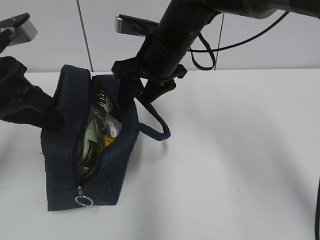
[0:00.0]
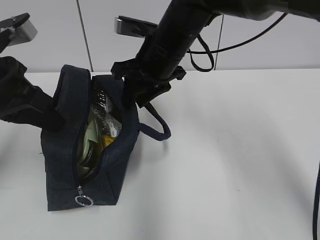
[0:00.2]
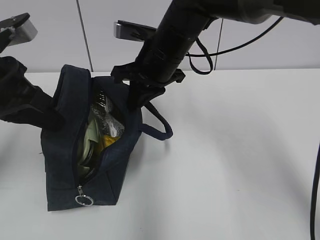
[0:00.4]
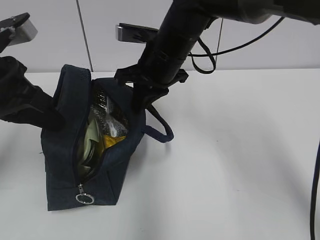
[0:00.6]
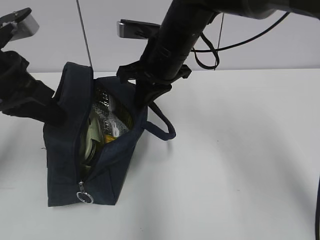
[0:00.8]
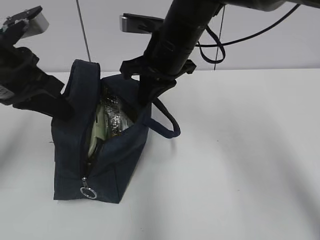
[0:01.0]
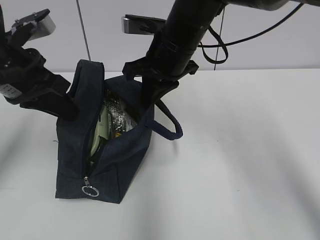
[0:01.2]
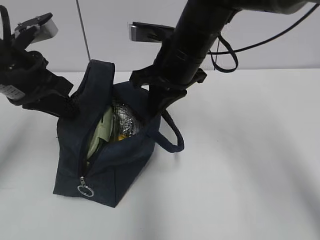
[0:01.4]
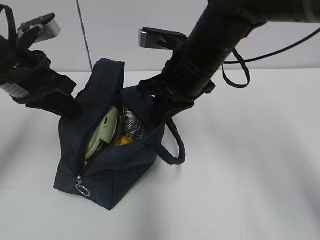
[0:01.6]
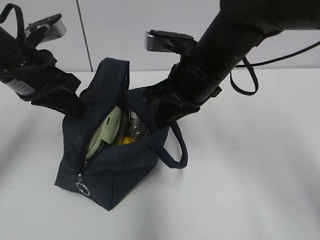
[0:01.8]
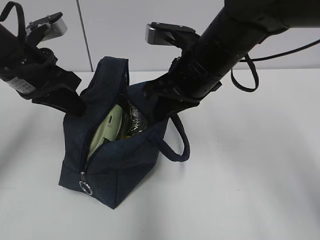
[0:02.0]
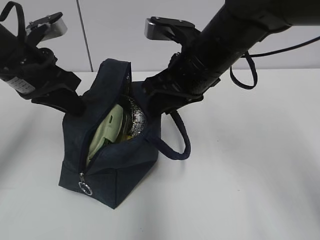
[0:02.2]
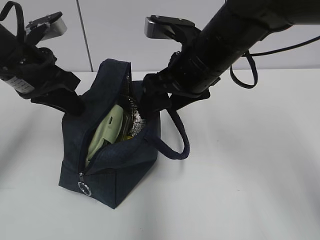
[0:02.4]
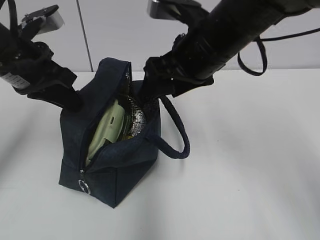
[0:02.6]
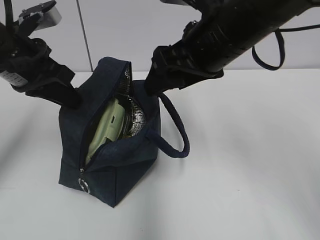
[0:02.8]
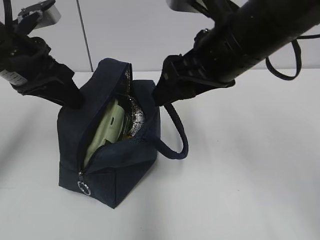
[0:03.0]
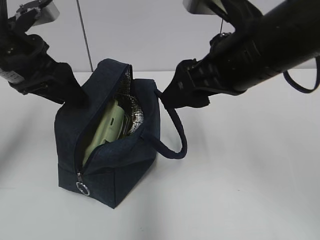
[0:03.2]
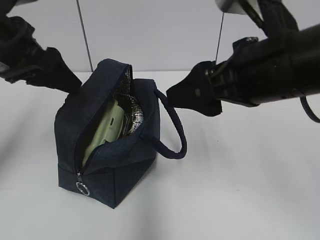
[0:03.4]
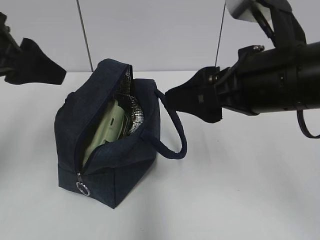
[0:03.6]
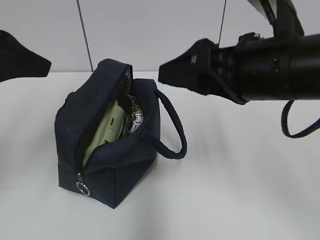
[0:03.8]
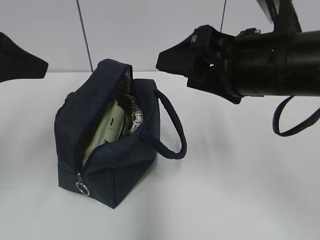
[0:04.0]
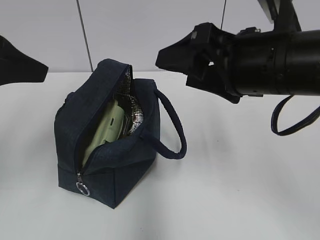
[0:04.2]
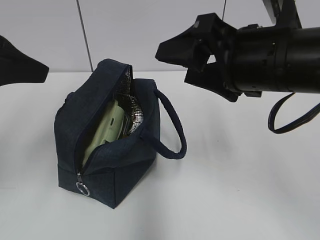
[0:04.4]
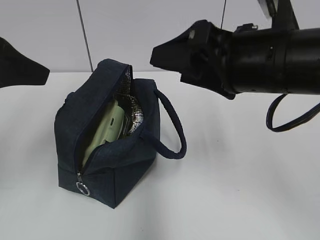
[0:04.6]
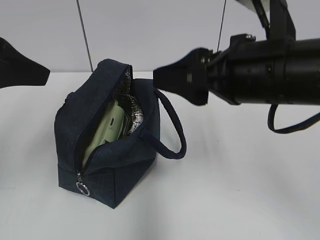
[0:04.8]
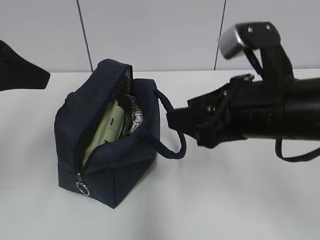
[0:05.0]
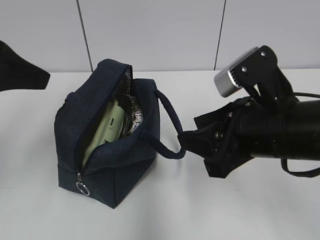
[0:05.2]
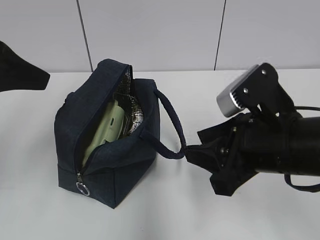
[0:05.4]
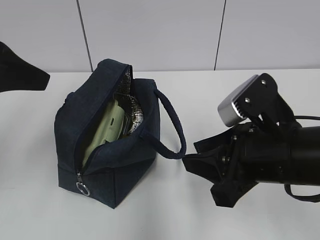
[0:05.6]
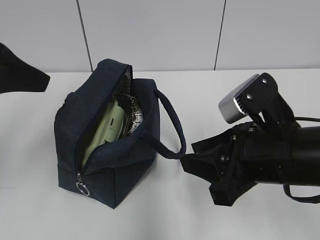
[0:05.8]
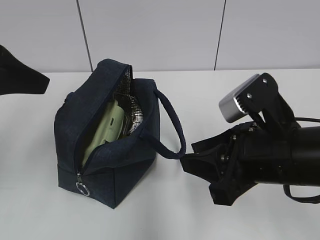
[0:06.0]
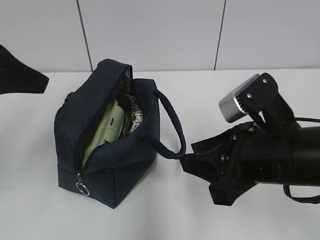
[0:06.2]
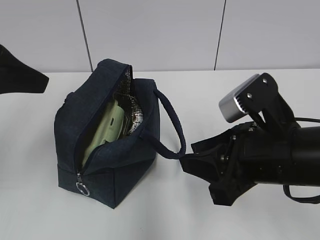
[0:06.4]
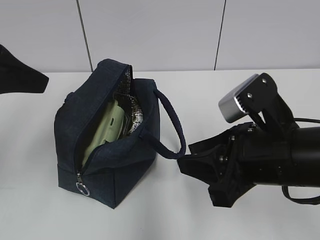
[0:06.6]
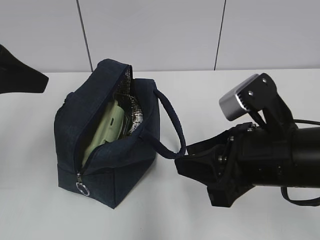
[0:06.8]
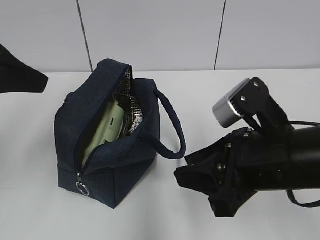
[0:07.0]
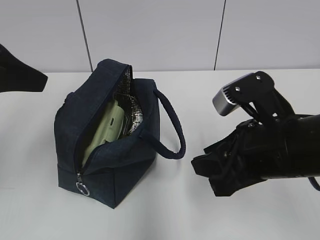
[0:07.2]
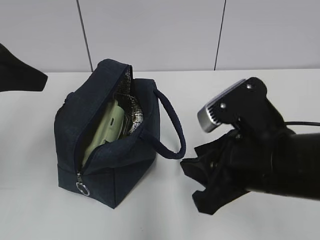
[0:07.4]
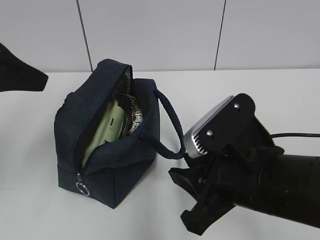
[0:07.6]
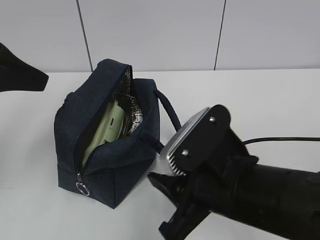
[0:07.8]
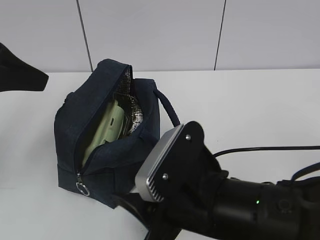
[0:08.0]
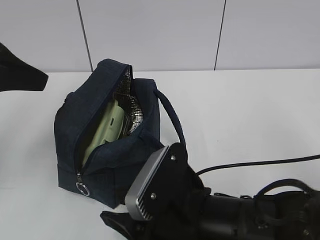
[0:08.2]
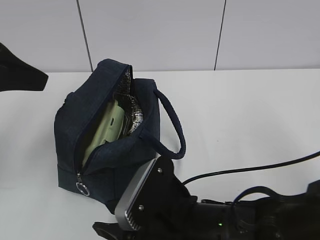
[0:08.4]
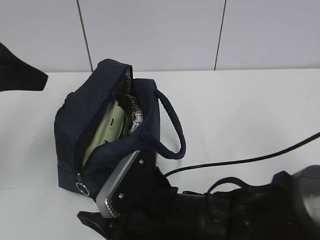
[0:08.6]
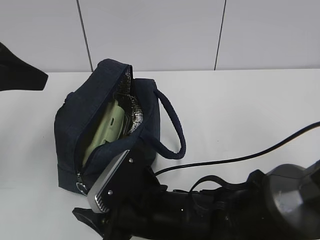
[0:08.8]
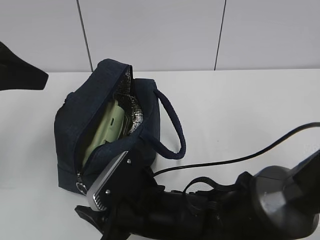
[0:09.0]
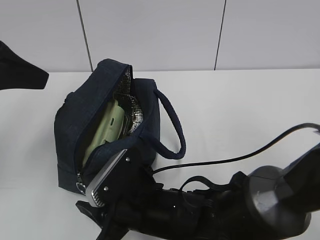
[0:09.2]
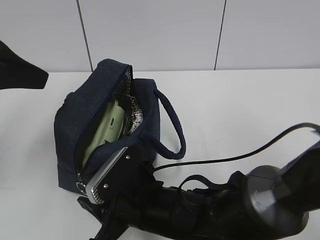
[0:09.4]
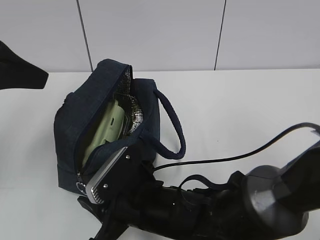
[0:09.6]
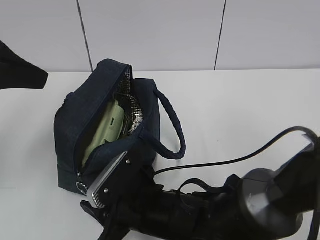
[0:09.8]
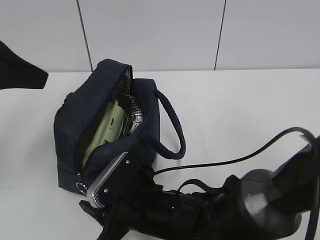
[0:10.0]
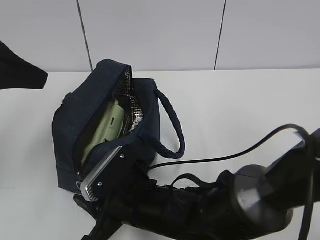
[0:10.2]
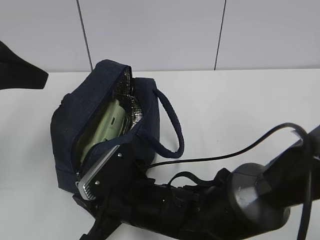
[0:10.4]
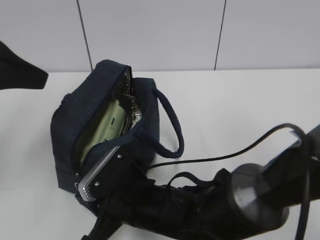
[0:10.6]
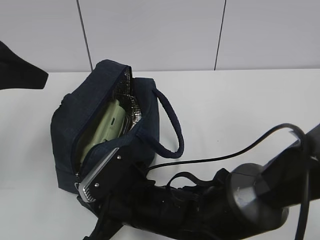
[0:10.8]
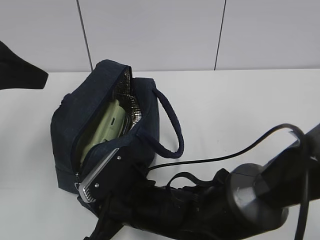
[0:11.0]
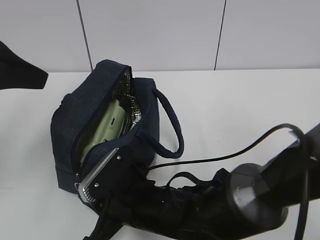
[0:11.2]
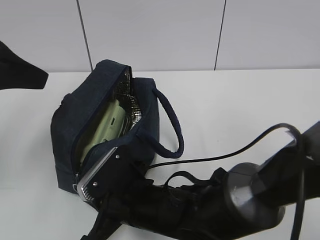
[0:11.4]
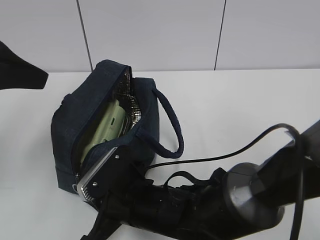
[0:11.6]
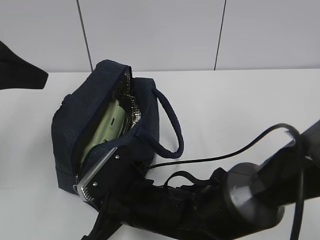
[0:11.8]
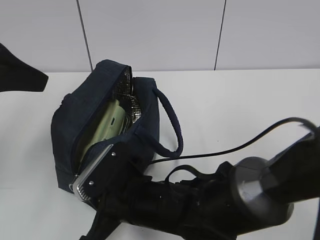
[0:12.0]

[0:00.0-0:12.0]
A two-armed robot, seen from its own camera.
Step, 0:00.8 to 0:02.8: Move the lunch bag to the right.
0:00.0 to 0:01.6: The right gripper shifts by some 5 cm, and closes its fingers.
0:01.6 to 0:03.0: The left gripper opens its fingers, while the right gripper shifts about 10 cm backward and upward, and opens up.
0:03.0 to 0:04.4: The left gripper moves backward and upward, roughly 10 cm; the right gripper shifts by about 5 cm.
0:04.4 to 0:06.0: The right gripper is displaced downward by about 10 cm, and closes up.
0:06.0 to 0:07.6: The grippers move only a little.
0:07.6 to 0:09.0: The right gripper moves to the left and downward, roughly 15 cm.
0:09.0 to 0:10.4: The grippers make only small movements.
0:10.4 to 0:12.0: The right gripper closes its fingers.

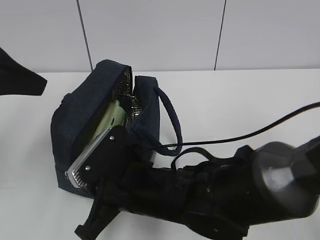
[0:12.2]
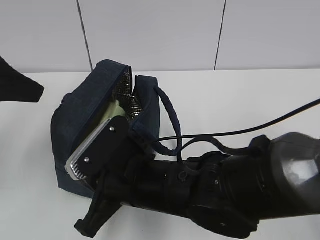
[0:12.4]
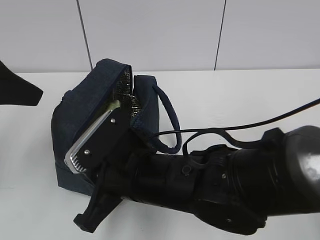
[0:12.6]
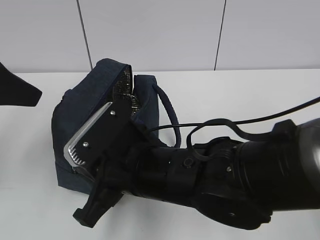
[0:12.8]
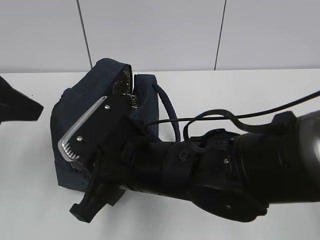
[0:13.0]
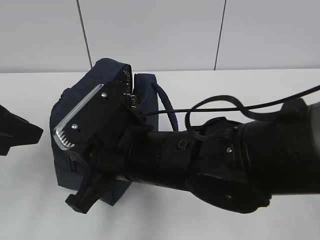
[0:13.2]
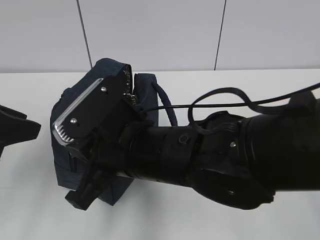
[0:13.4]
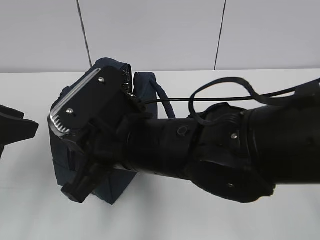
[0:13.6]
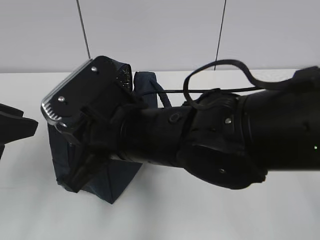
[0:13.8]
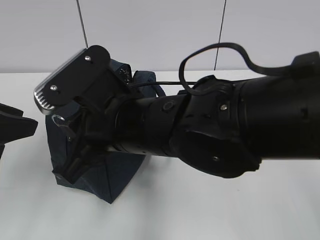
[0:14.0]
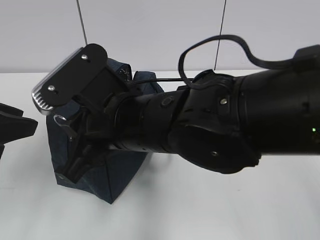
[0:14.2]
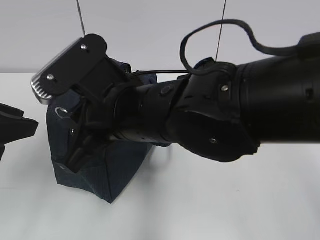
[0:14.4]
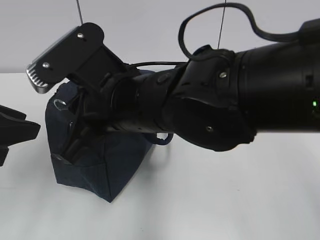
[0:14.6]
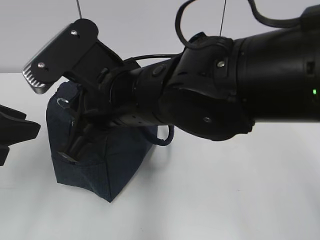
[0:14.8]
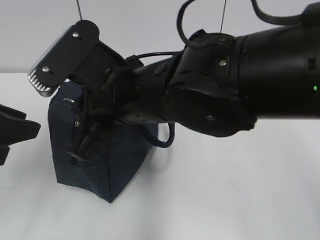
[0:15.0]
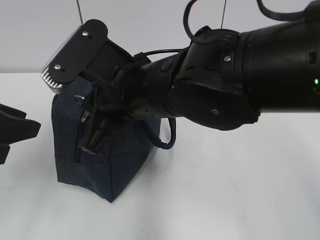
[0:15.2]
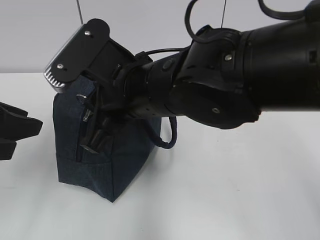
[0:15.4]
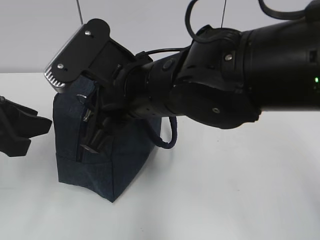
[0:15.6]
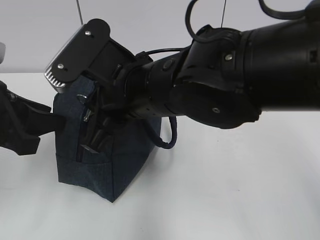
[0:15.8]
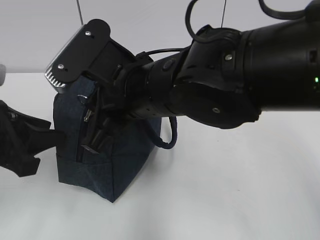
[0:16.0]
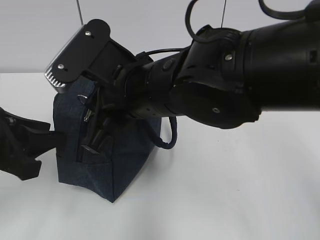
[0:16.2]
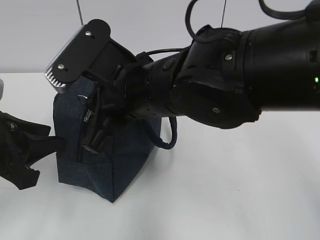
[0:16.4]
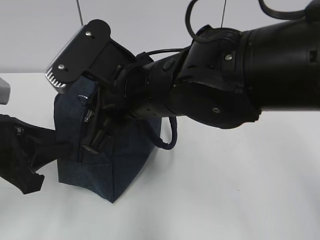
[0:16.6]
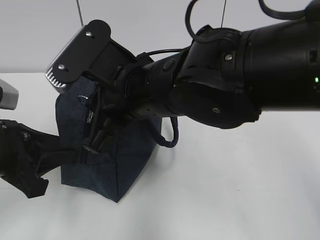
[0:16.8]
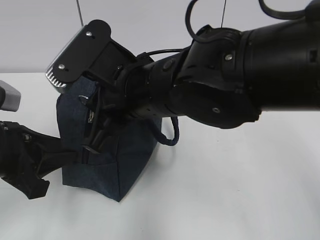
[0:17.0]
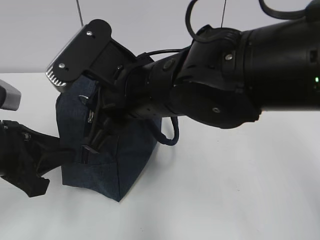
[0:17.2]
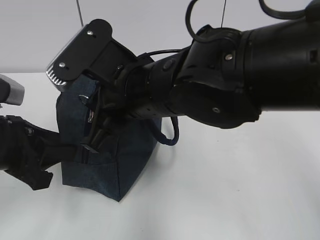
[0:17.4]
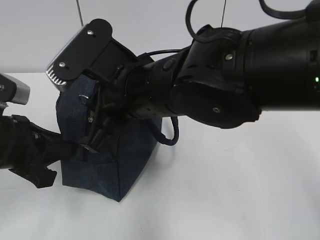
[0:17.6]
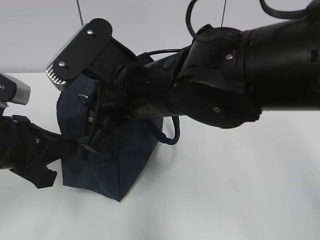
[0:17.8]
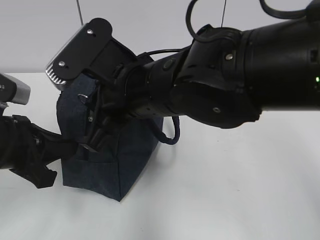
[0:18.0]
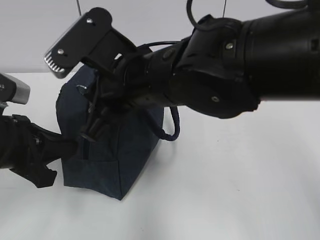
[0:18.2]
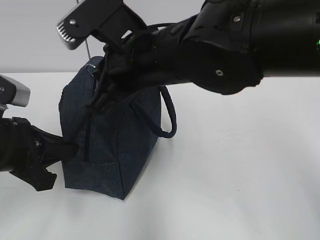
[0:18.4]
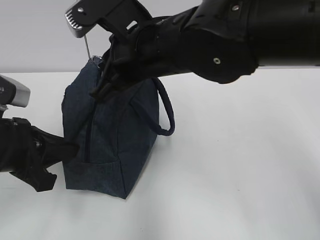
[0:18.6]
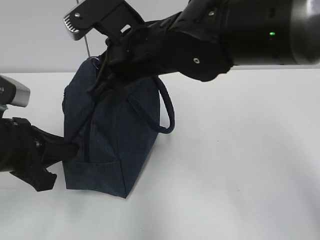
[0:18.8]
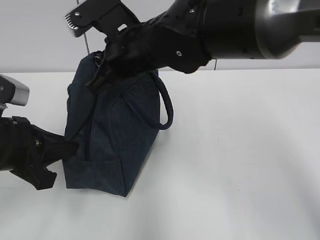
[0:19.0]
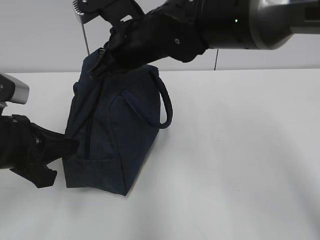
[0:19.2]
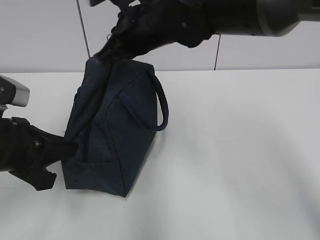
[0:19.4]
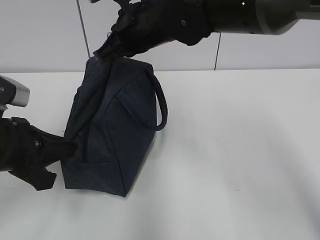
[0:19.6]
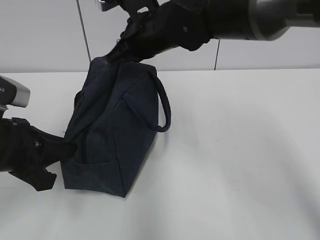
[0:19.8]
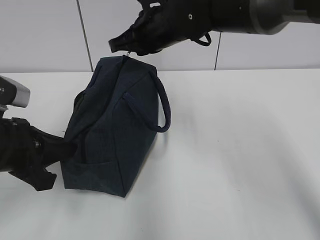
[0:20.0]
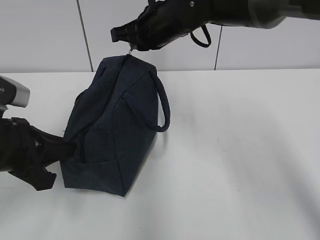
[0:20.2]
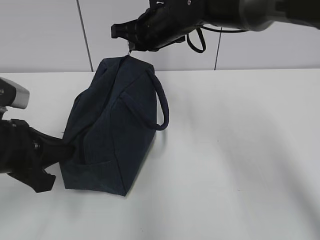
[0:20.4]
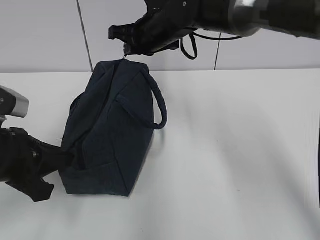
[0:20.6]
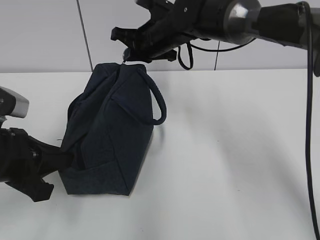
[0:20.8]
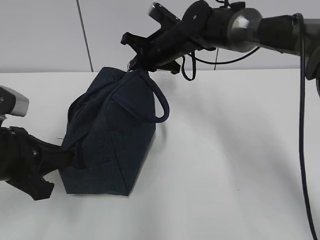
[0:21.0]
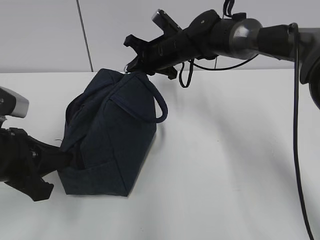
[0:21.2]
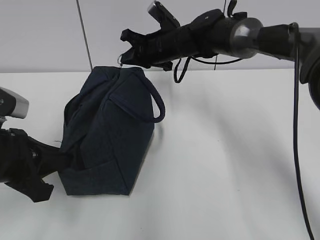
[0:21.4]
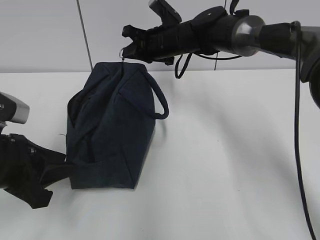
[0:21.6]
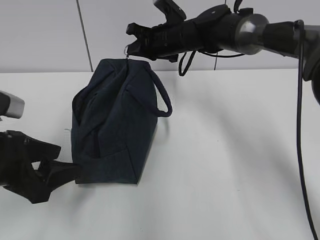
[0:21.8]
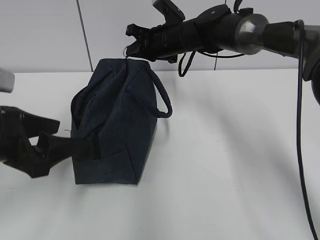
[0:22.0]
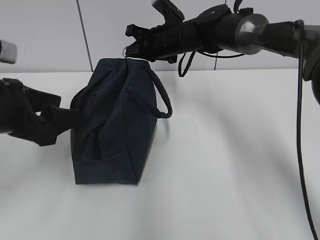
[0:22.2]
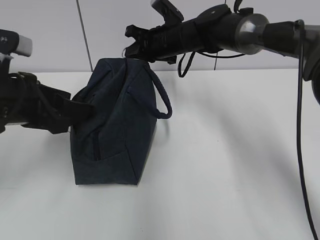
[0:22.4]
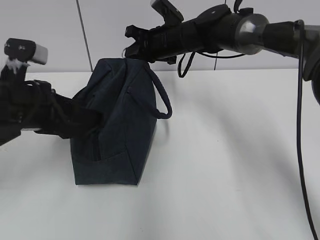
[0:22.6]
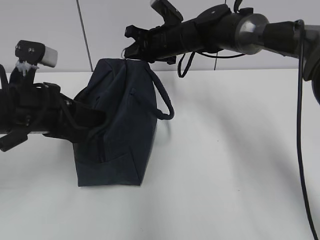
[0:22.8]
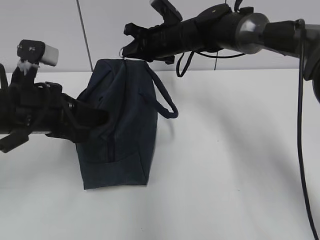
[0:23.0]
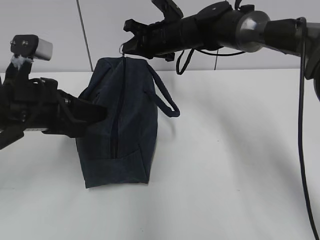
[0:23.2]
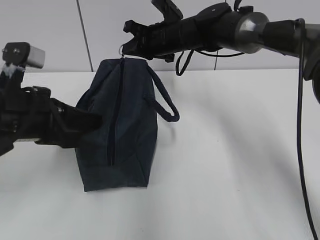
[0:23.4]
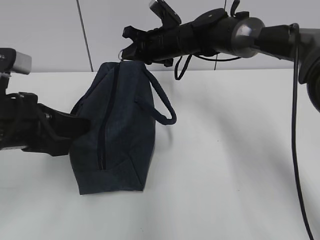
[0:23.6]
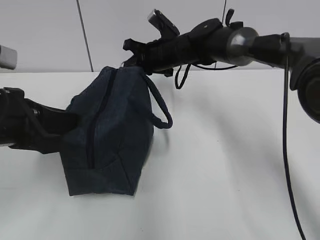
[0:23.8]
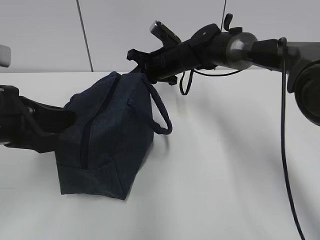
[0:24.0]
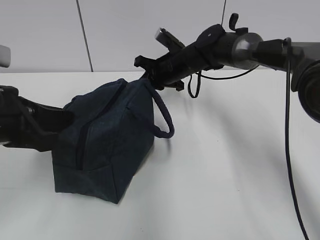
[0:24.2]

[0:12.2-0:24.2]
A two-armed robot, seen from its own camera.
Step, 0:12.2 to 0:21.4: Grab the lunch bag with your left hand.
0:12.2 to 0:13.8: The right gripper moves upward, some 10 cm, while the left gripper shifts roughly 5 cm downward.
0:15.2 to 0:16.6: The left gripper goes roughly 5 cm downward.
0:16.6 to 0:18.2: The left gripper closes.
0:18.2 to 0:19.8: The right gripper travels forward by roughly 10 cm.
0:19.8 to 0:21.2: The right gripper heads forward and downward, covering some 15 cm.
0:21.2 to 0:22.6: The left gripper moves forward, roughly 5 cm, and opens up.
0:22.6 to 0:24.2: The left gripper travels backward by about 5 cm, and closes its fingers, while the right gripper is displaced downward by some 5 cm.
